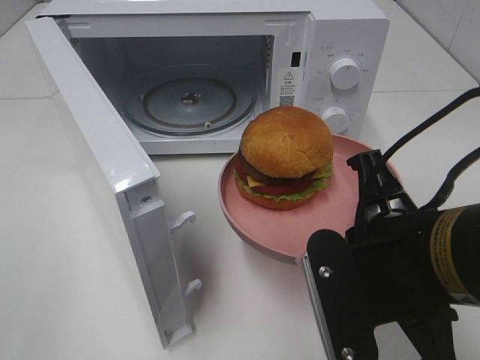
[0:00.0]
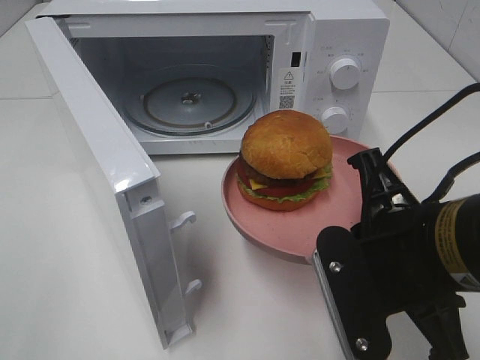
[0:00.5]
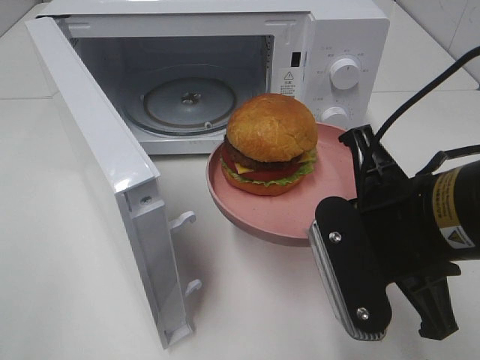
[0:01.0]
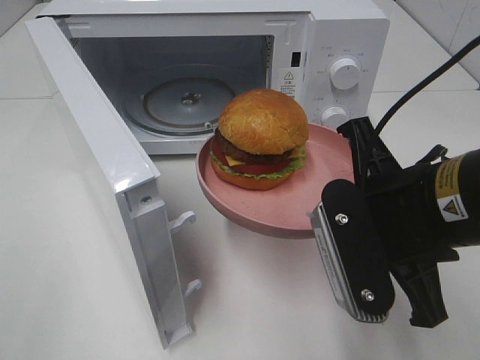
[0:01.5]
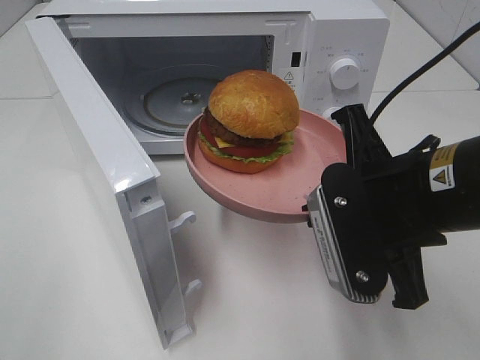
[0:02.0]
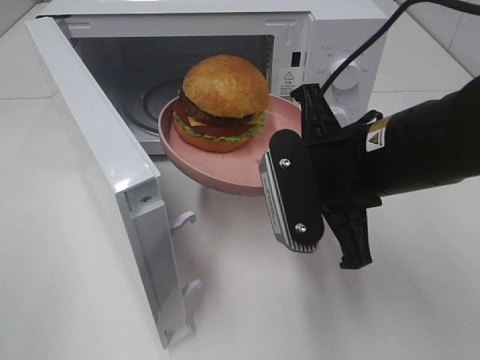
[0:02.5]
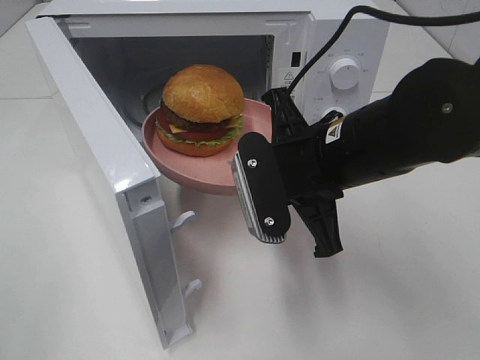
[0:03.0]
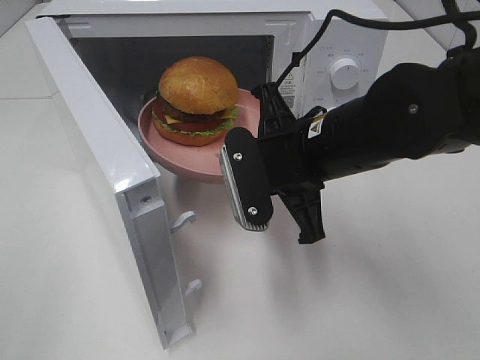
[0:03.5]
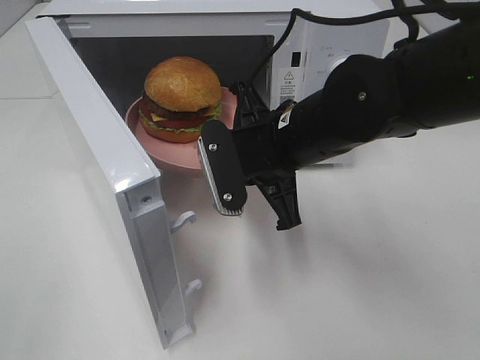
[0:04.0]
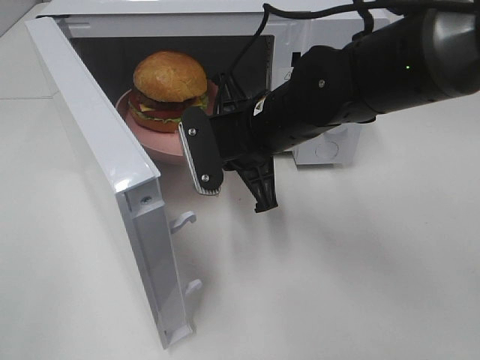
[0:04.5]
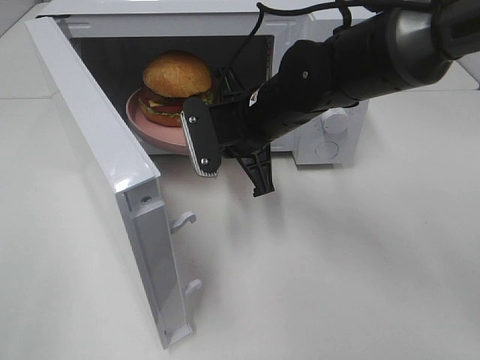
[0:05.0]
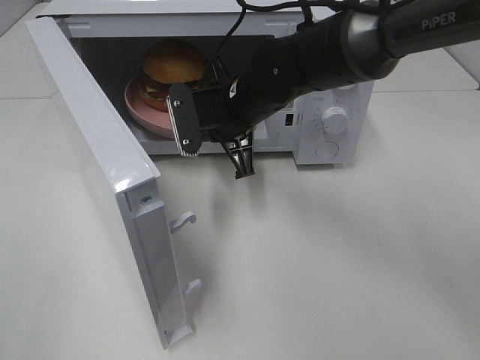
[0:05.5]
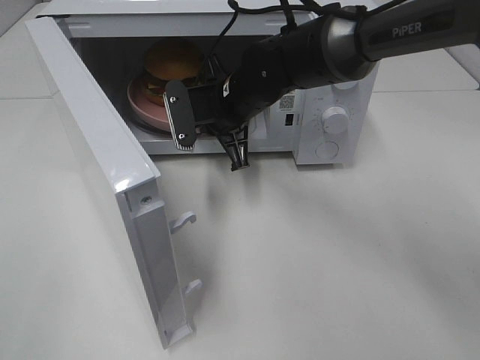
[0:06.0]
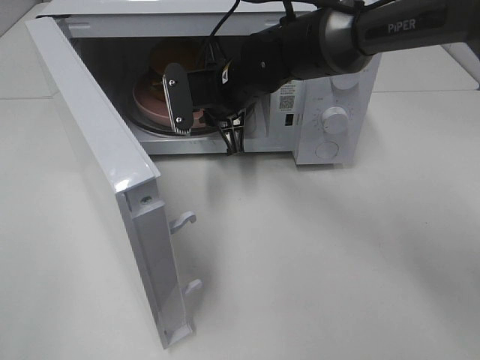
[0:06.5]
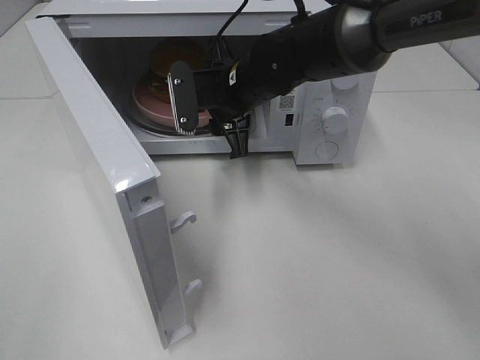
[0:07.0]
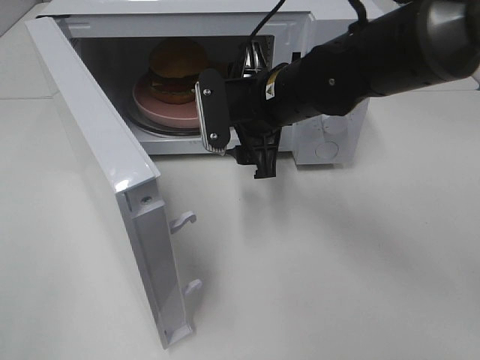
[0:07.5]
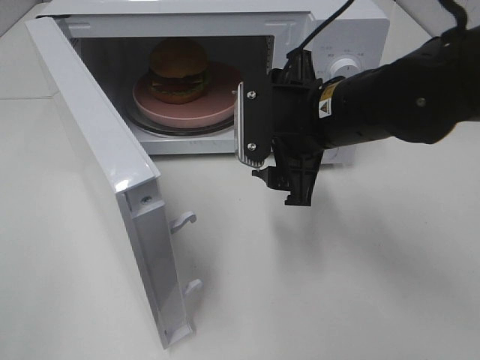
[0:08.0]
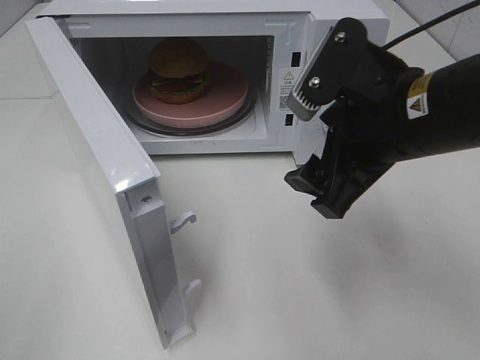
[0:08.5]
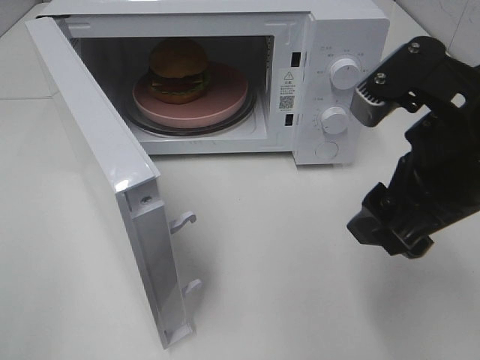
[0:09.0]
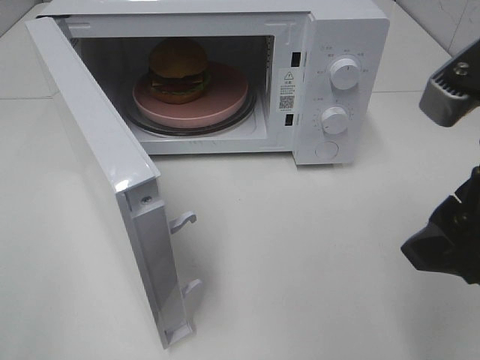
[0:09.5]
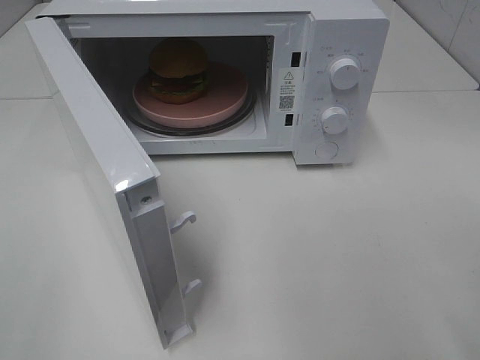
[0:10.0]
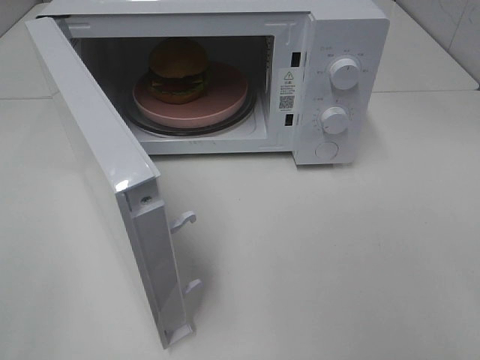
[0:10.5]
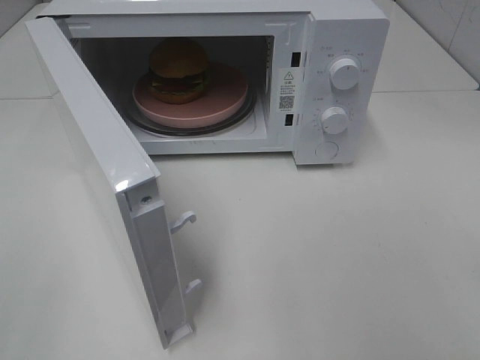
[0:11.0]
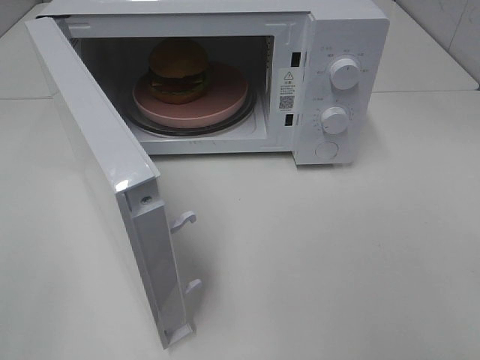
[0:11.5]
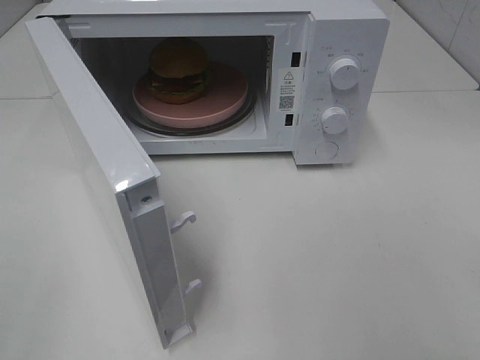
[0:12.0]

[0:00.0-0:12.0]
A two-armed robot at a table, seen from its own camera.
Task of the whole recording: Heat the burger.
Step, 0.0 to 6.5 s: Right hand: place the plate in the microwave.
0.0 to 2.0 s: The right gripper heads forward, covering roughly 5 cm.
2.0 to 4.0 s: The right gripper moves forward and to the left, some 15 cm.
4.0 to 6.0 s: The right gripper moves forward, about 10 cm.
6.0 to 8.0 s: The right gripper travels backward, to the right and upward by roughly 15 cm, and opens its fingers.
8.0 to 10.0 s: The right gripper goes approximately 25 cm backward, to the right and upward.

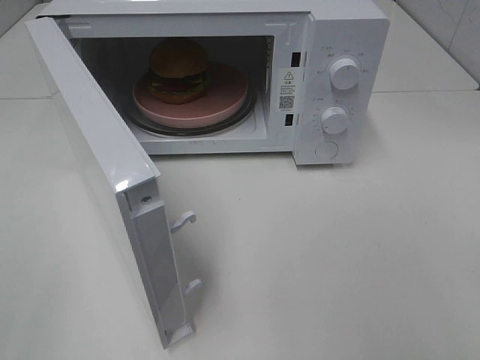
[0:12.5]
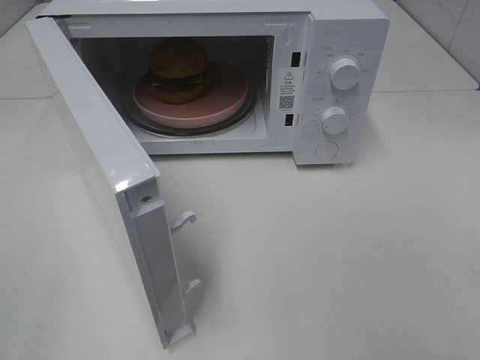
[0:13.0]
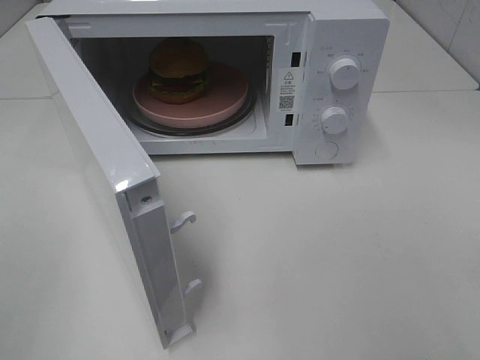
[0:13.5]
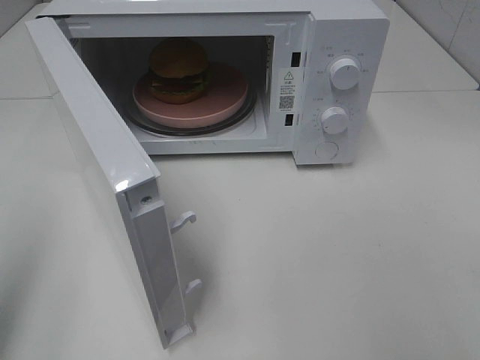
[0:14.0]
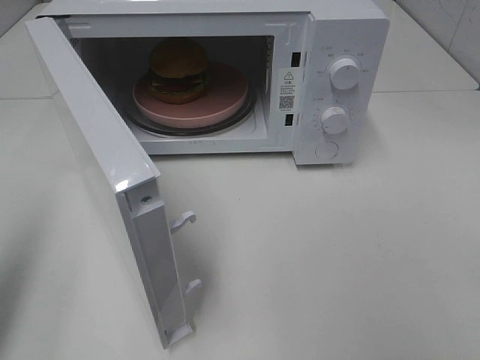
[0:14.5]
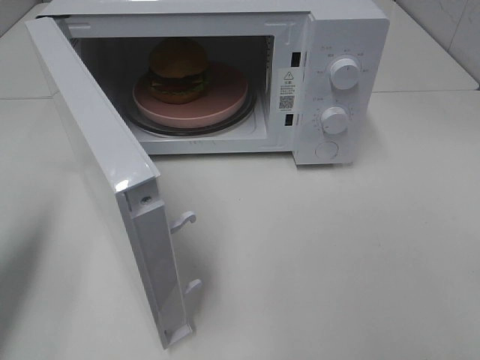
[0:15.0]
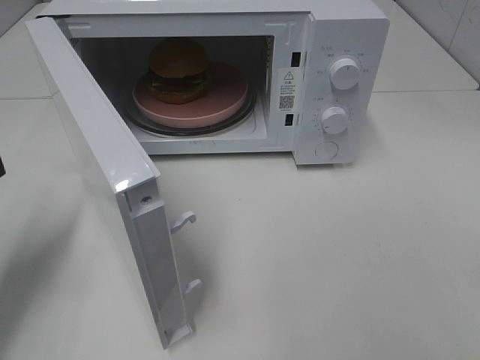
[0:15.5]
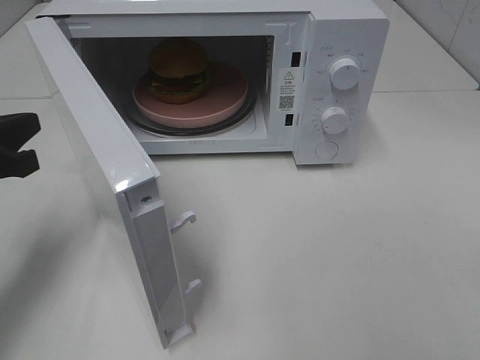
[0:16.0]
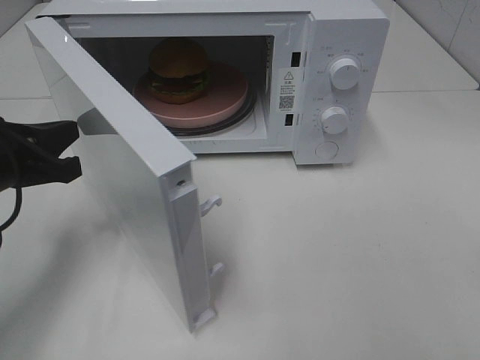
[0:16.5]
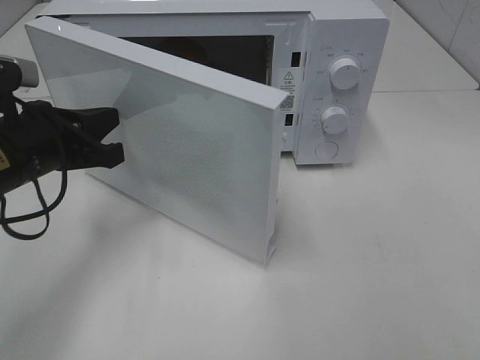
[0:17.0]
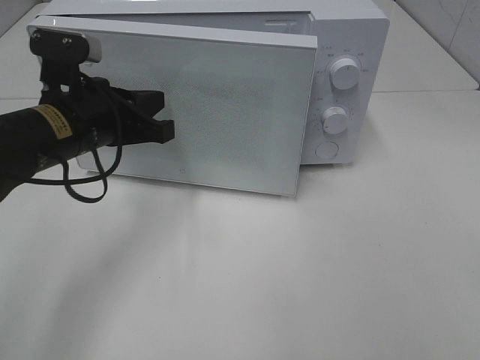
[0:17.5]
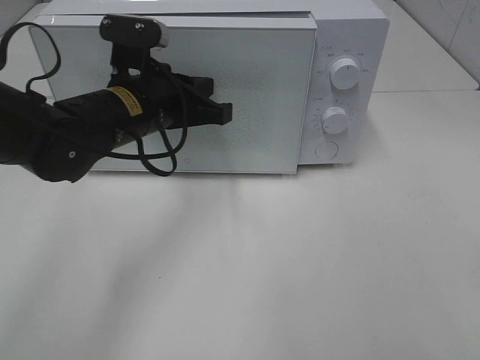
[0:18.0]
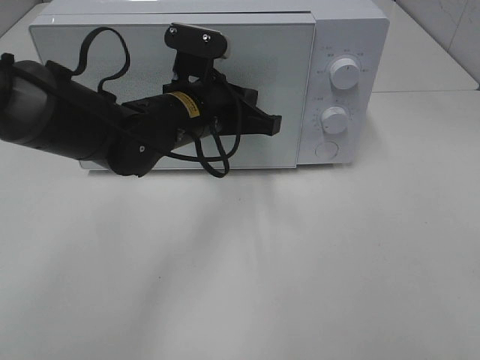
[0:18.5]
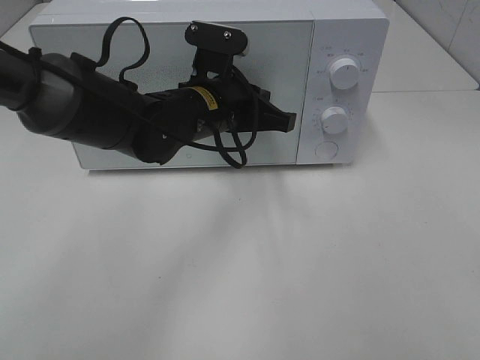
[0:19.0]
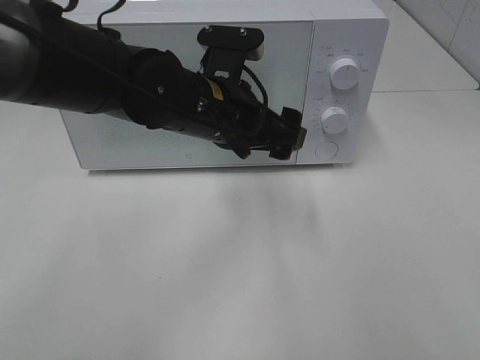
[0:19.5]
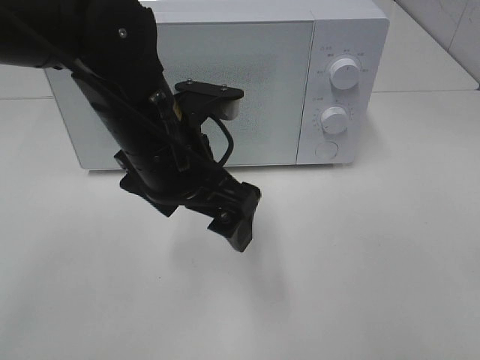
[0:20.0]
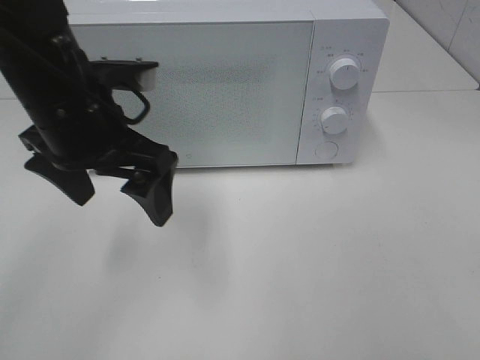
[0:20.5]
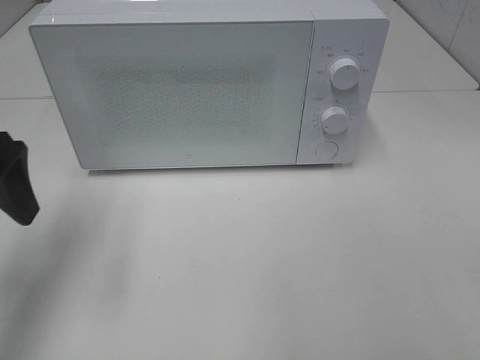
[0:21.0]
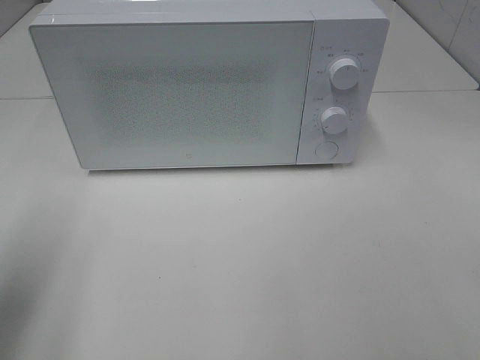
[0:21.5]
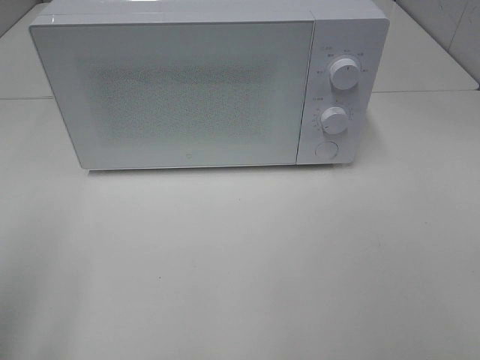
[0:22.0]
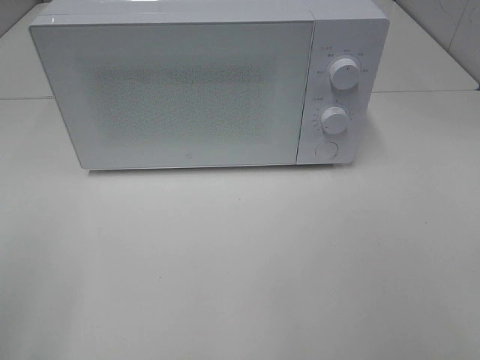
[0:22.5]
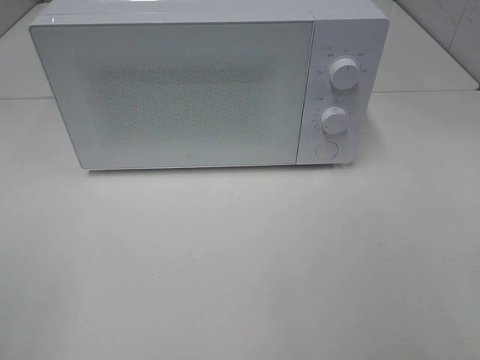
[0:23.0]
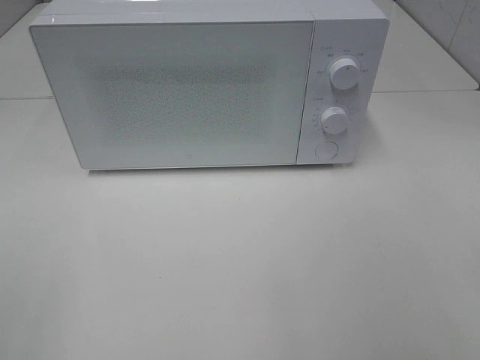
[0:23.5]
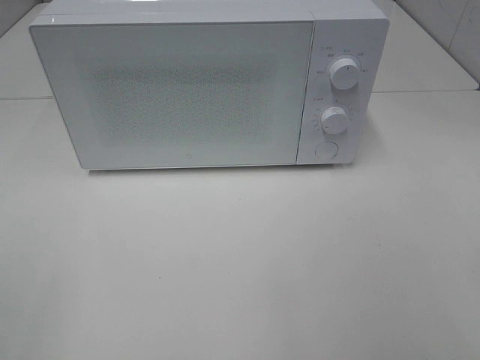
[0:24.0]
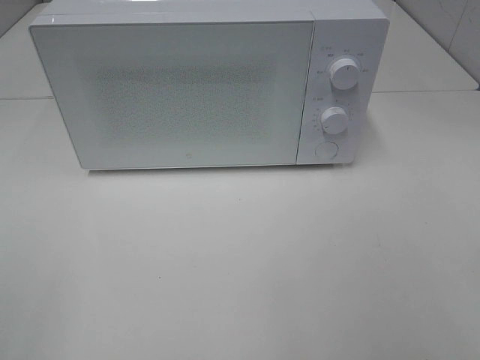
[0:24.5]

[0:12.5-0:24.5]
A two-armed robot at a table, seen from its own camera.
Task of the whole recording: Heat the burger.
Step, 12.5 to 18.5 s: Left hand: close the microwave door.
12.5 to 14.5 s: The left gripper shifts roughly 15 cm forward, and closes.
14.5 to 16.5 s: The left gripper moves forward, downward and to the right, approximately 20 cm.
16.5 to 18.5 s: The left gripper goes approximately 20 cm to the right and forward.
18.5 to 20.5 s: The left gripper goes about 15 cm to the left, upward and backward, and opens.
20.5 to 22.5 s: The left gripper shifts about 30 cm backward and to the left.

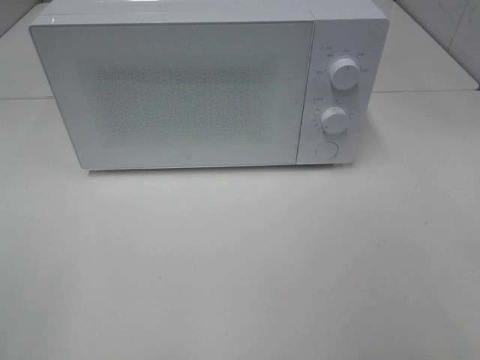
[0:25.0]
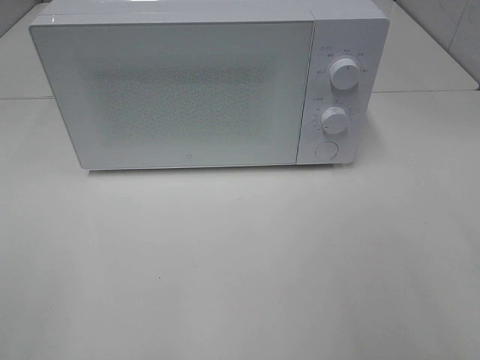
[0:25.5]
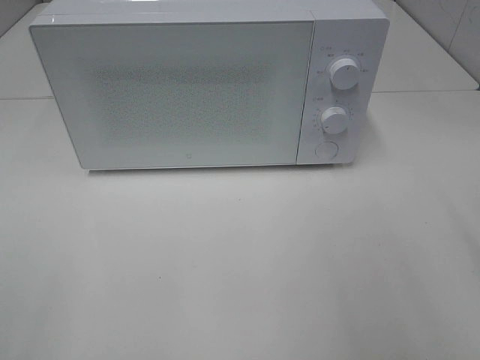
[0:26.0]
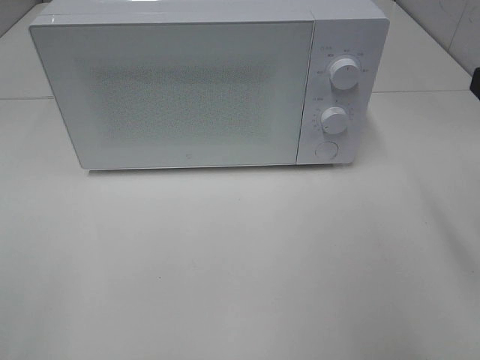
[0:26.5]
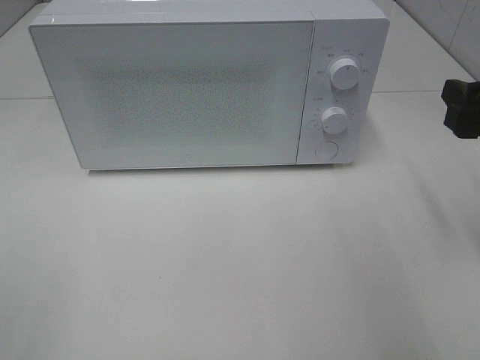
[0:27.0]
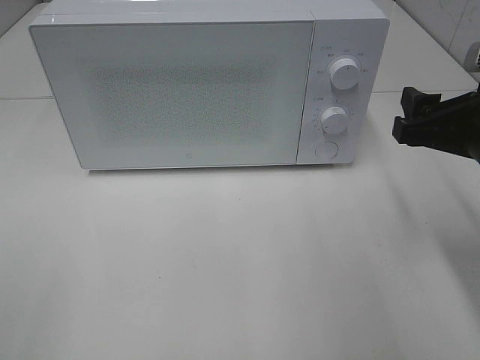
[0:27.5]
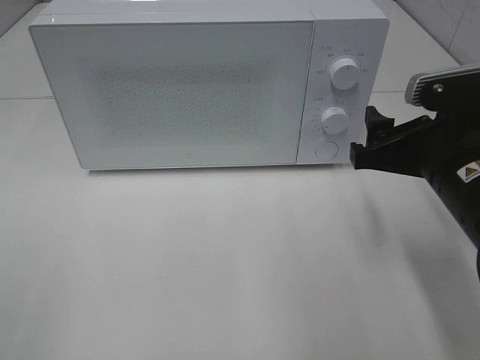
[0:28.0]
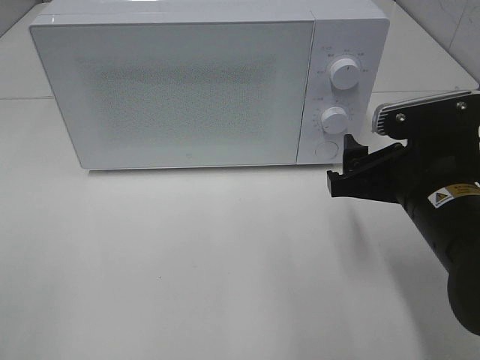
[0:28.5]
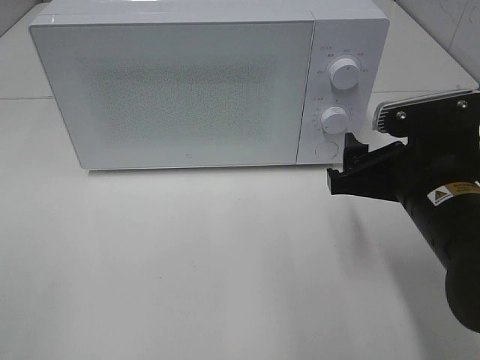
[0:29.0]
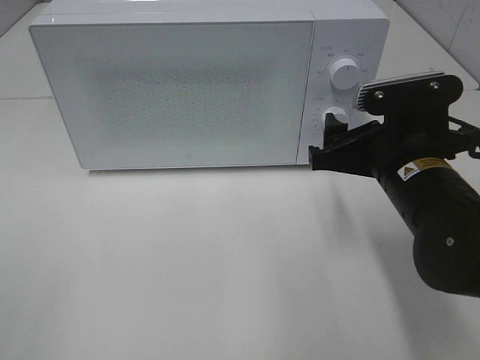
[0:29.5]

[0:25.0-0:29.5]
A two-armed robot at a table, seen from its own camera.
Task of the whole recording: Heat the burger.
25.0 to 27.0 s: The right gripper travels forward by about 20 cm.
27.0 to 29.5 s: The right gripper goes about 15 cm to the left and downward.
